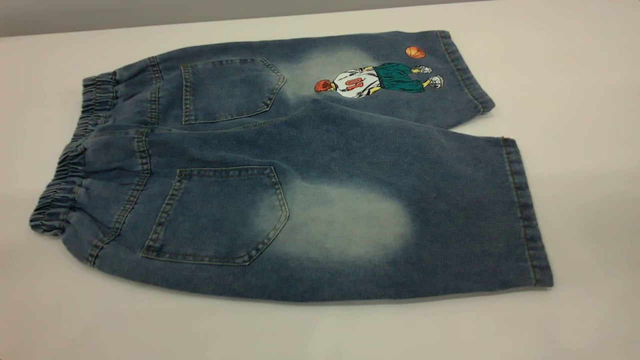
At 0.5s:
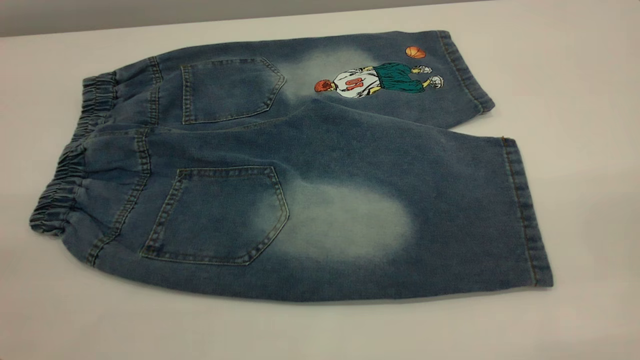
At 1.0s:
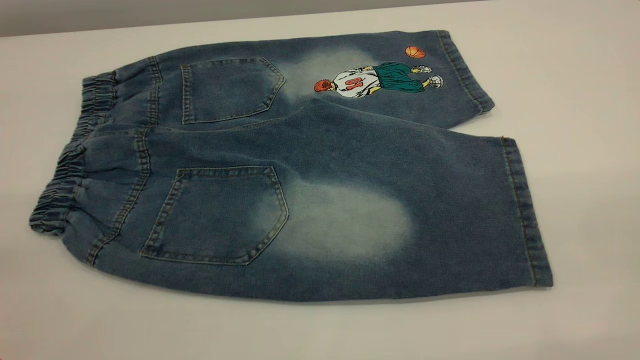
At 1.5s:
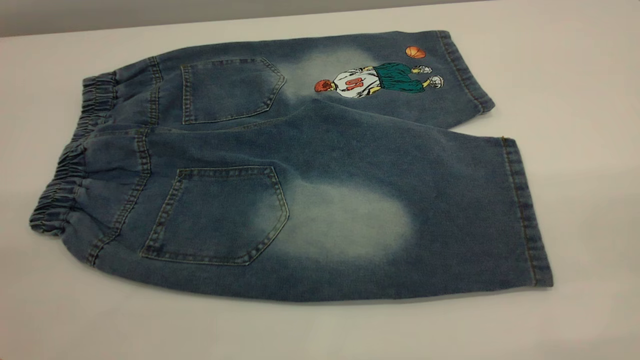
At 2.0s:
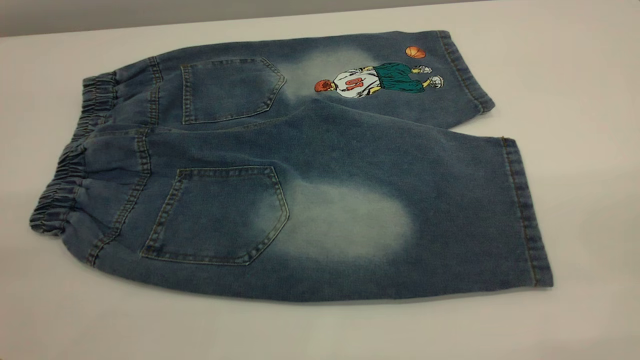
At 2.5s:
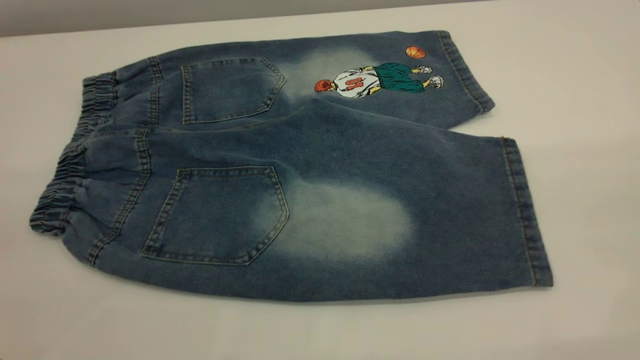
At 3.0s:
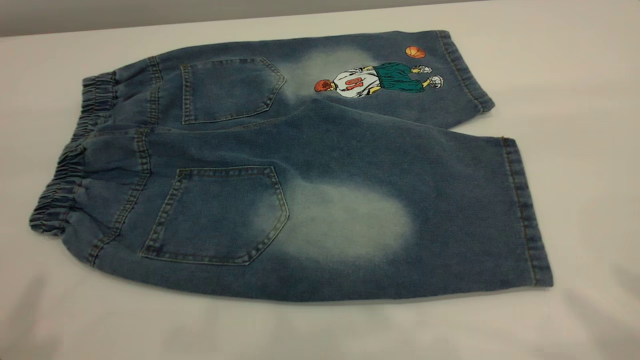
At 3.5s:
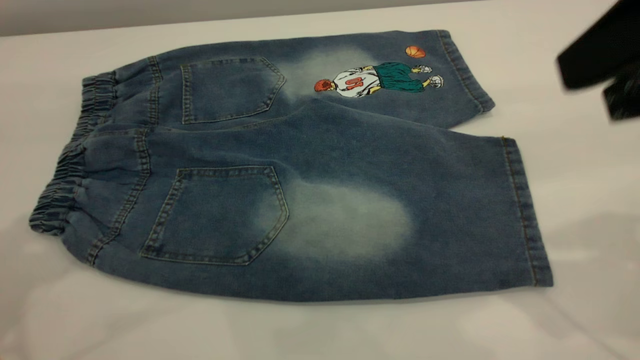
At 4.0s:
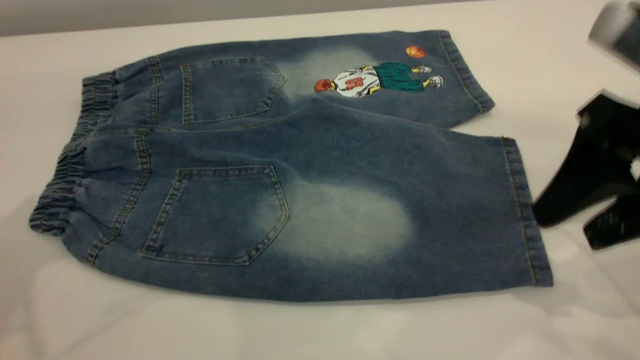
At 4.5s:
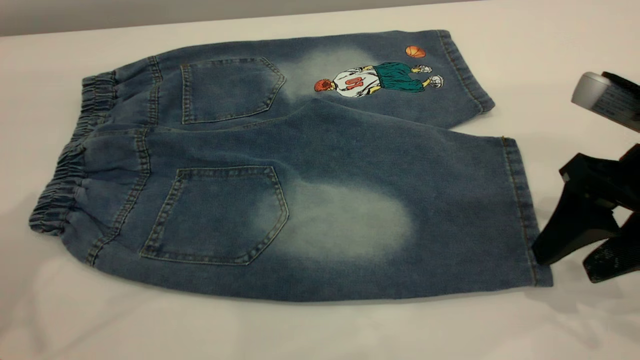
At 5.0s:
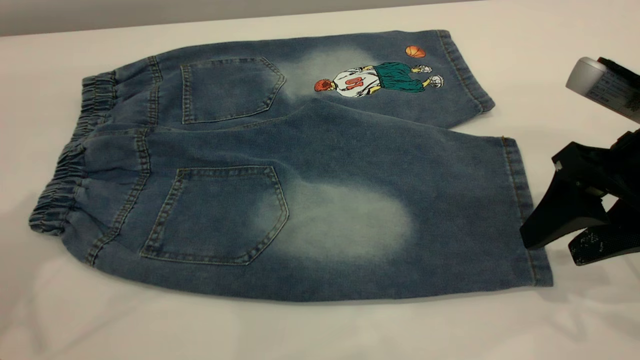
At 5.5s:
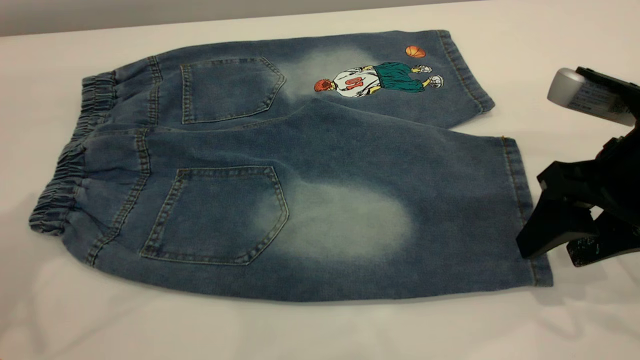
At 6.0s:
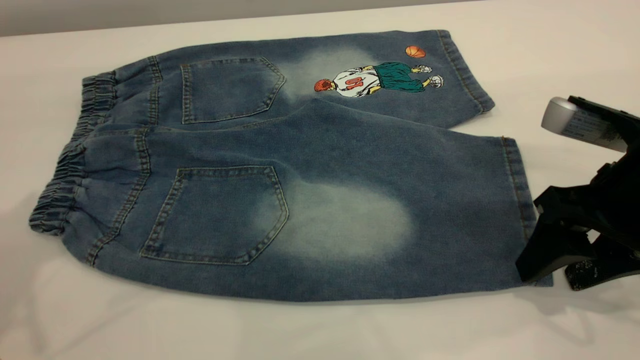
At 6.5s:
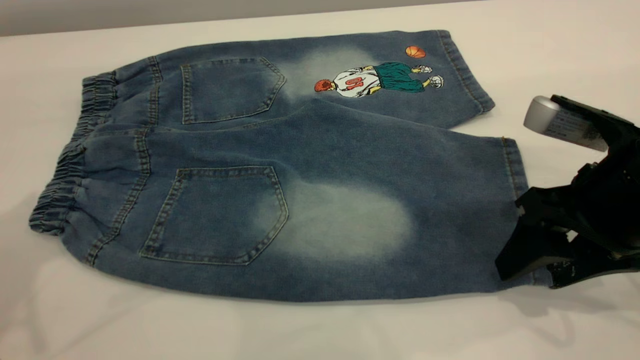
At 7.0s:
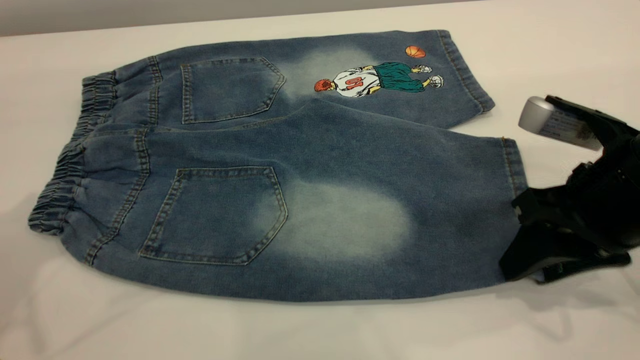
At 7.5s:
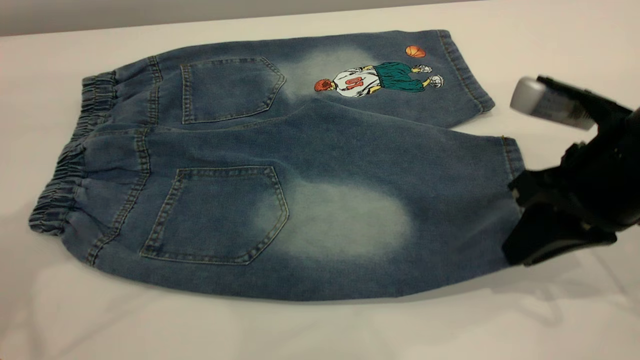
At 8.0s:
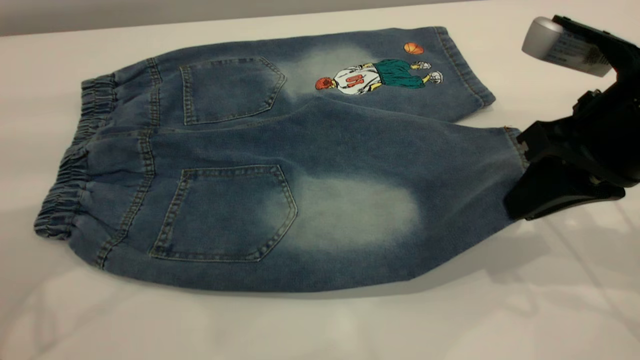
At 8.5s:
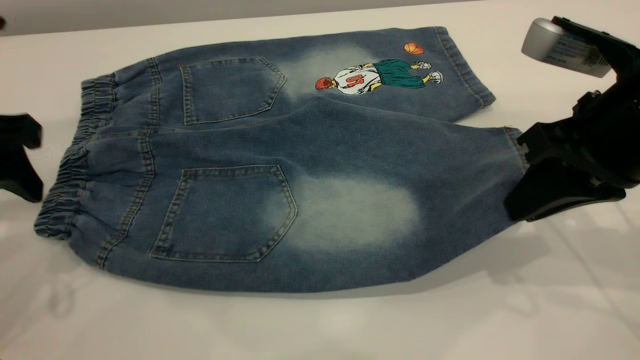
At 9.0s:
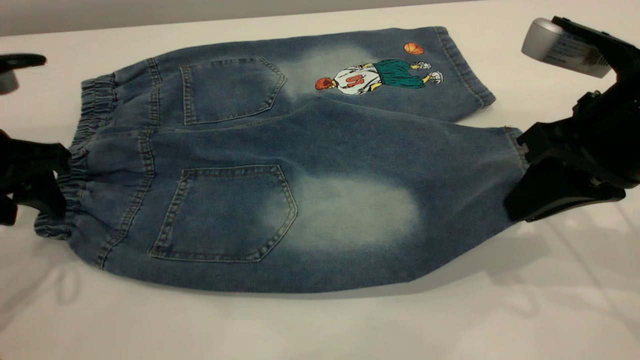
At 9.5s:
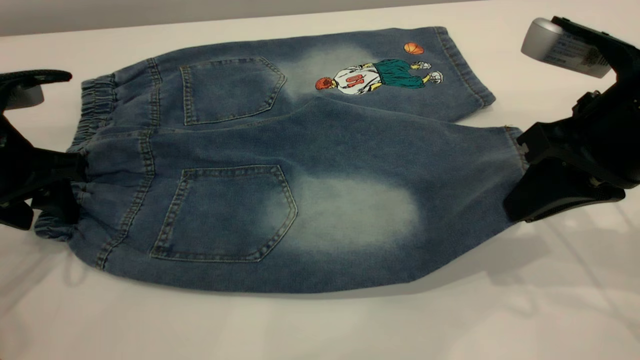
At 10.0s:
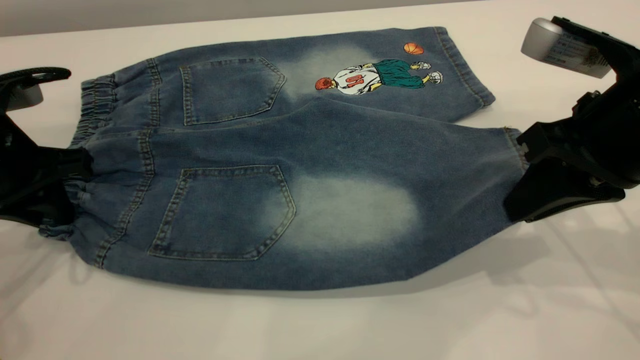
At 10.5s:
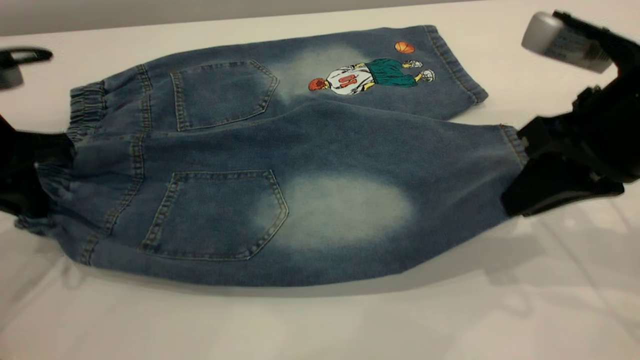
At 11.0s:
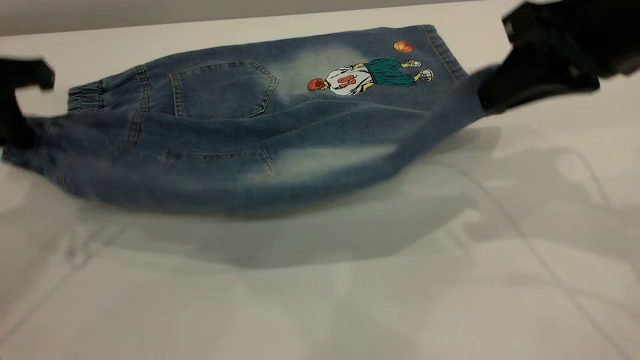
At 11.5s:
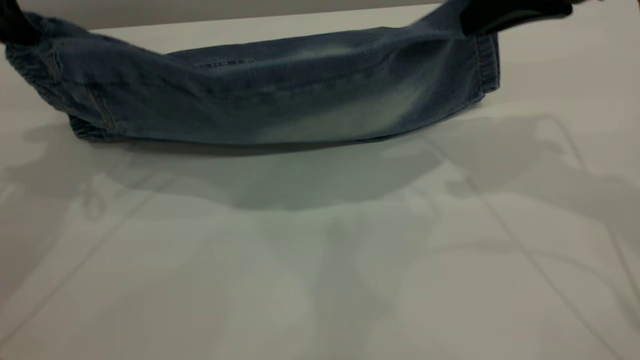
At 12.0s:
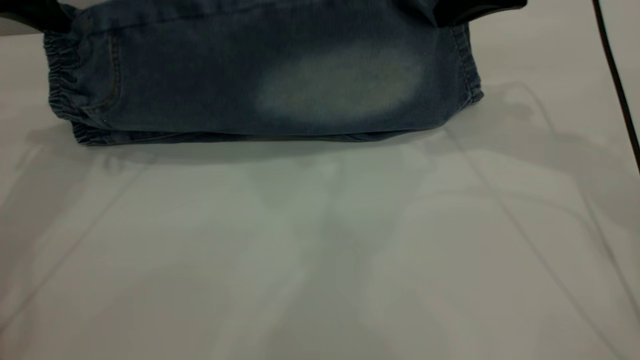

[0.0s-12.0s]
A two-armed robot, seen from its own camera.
0.0s to 2.0s: Both grippers stay about where they are.
2.0s to 4.0s: The right gripper travels forward and downward by approximately 30 cm.
4.0s to 6.0s: The right gripper is displaced downward by about 5 cm.
6.0s to 8.0s: The left gripper shifts approximately 5 cm downward. The right gripper changes place by approximately 5 cm, and closes its fingers.
8.0s to 10.0s: The left gripper goes about 15 cm downward, and closes up.
10.0s to 12.0s: Both grippers move forward and upward, some 15 cm.

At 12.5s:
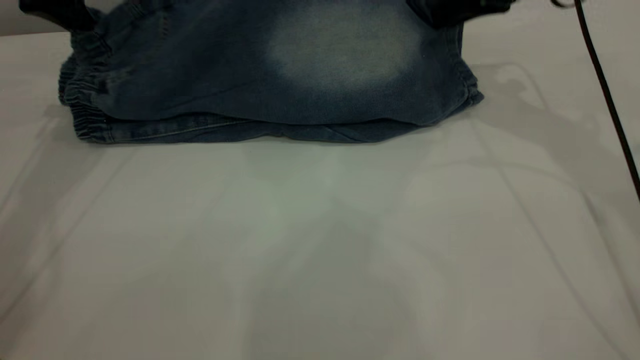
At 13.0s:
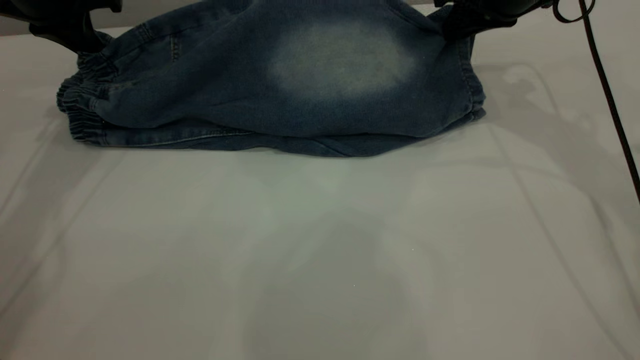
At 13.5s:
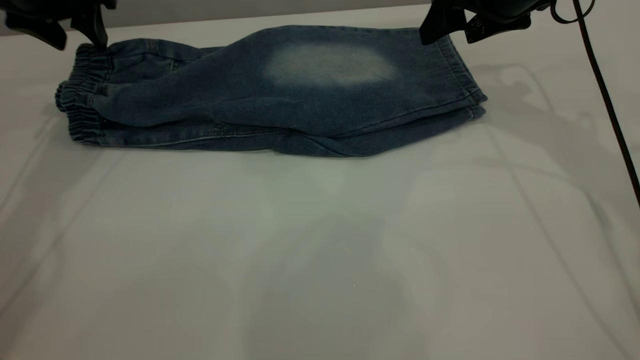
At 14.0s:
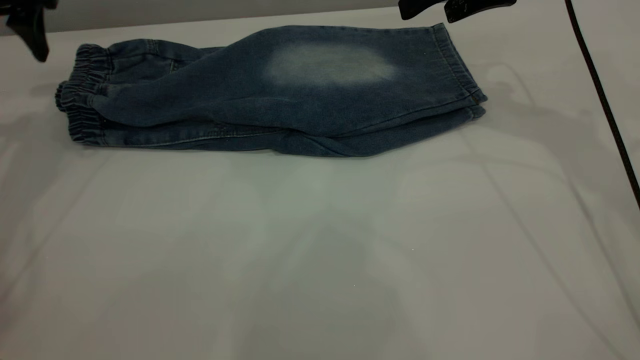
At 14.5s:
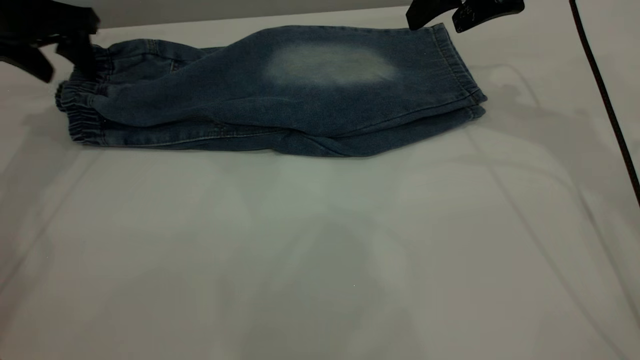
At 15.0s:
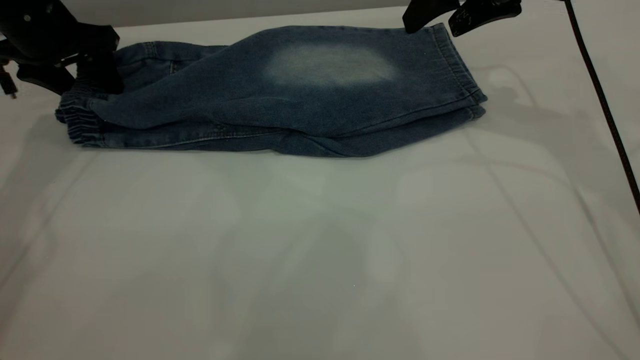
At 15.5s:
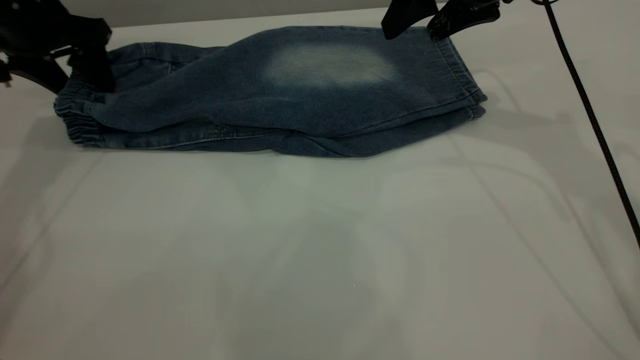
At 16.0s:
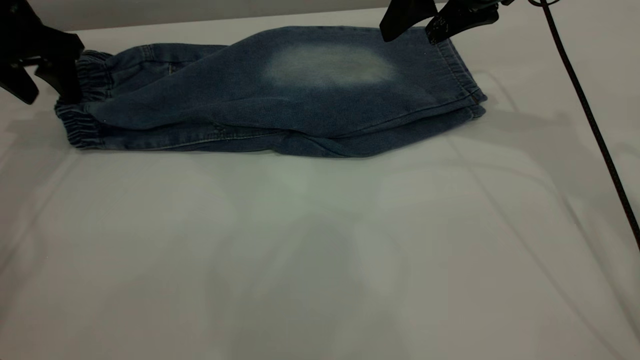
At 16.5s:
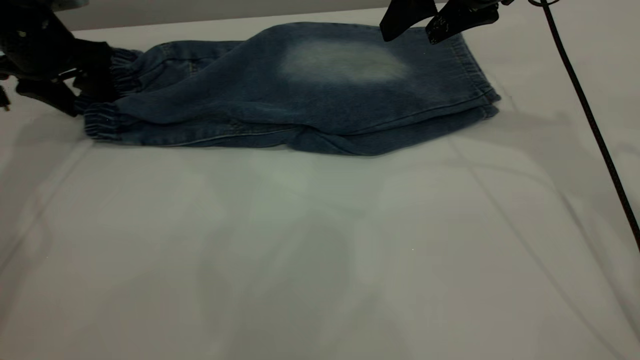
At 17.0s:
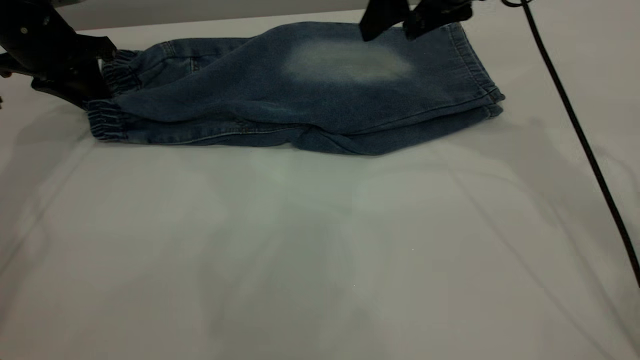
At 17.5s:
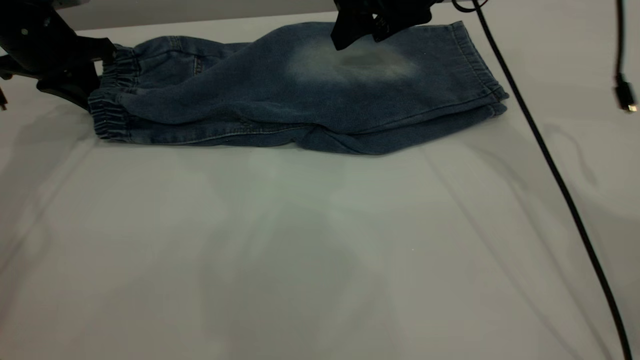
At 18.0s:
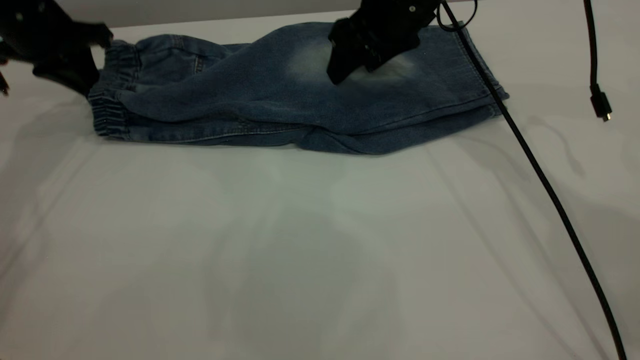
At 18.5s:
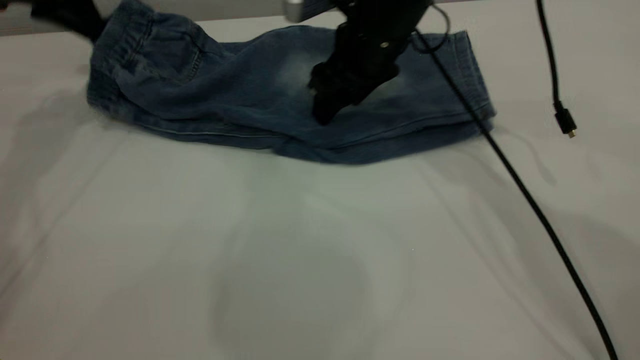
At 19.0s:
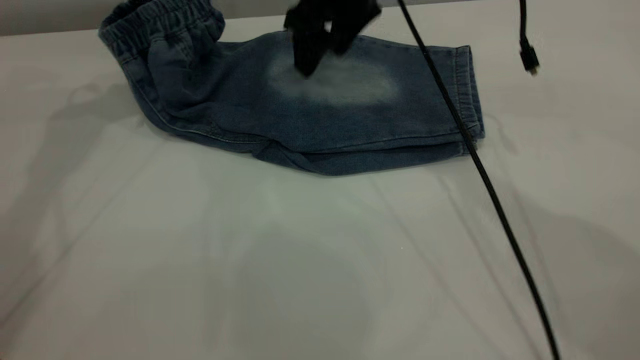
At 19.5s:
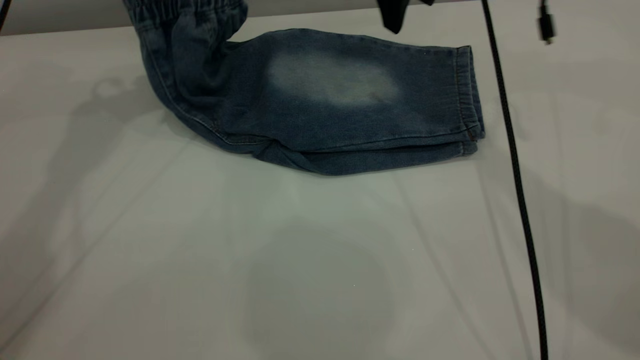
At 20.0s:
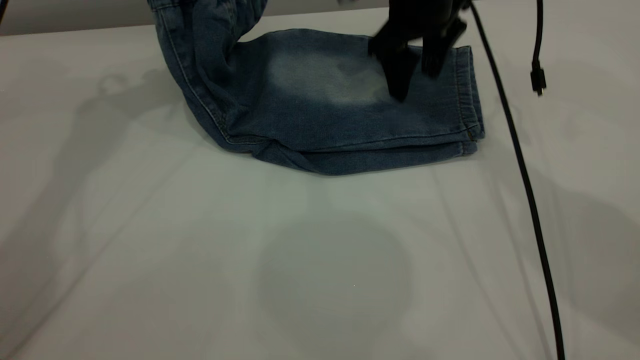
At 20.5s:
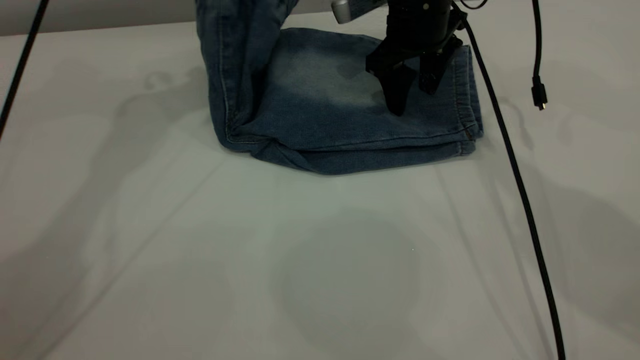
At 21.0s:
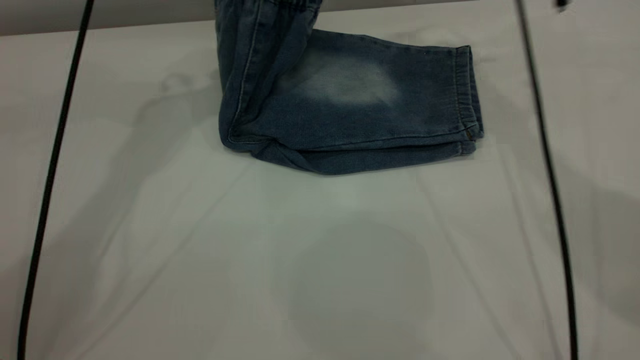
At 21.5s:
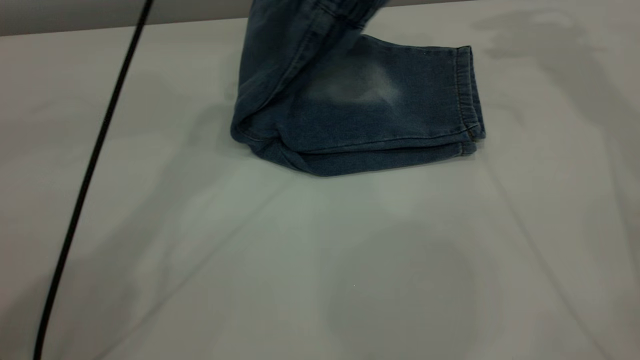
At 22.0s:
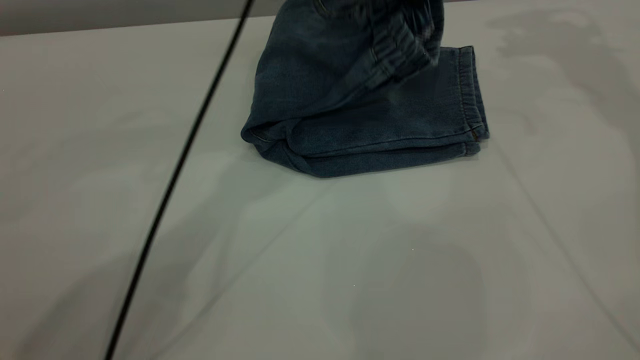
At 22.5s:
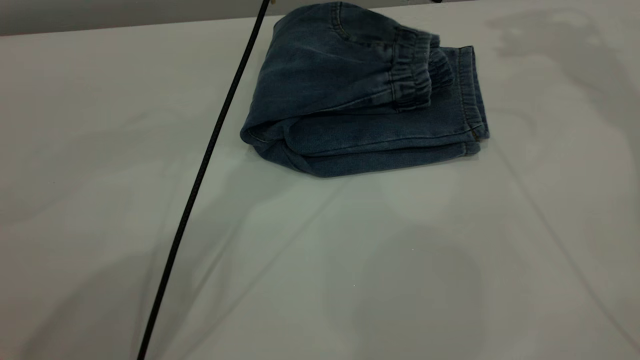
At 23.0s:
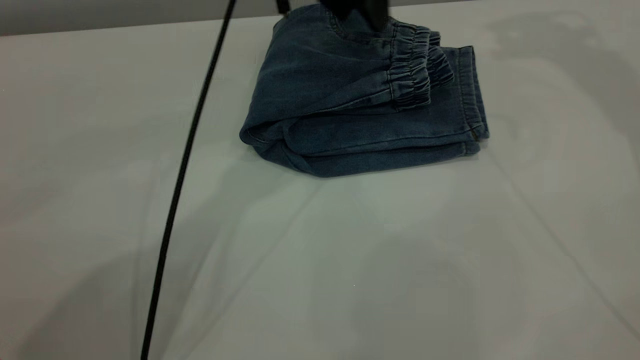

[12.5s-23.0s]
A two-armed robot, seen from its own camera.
Step, 14.0s to 22.5s: Fold the pants from left to right.
12.5s to 14.5s: The left gripper opens, while the right gripper opens its fingers.
14.5s to 16.5s: There are only small adjustments of the grippers.
16.5s to 19.0s: The left gripper moves upward and to the right, about 10 cm, and closes; the right gripper goes some 10 cm to the left.
19.0s to 21.0s: The right gripper heads to the right, forward and upward, covering some 15 cm, while the left gripper heads to the right and upward, covering approximately 15 cm.
21.0s to 23.0s: The right gripper heads upward and to the right, covering some 20 cm; the left gripper moves to the right and downward, approximately 15 cm, and opens up.
